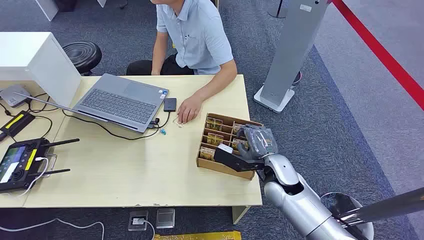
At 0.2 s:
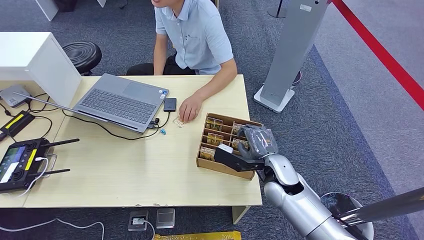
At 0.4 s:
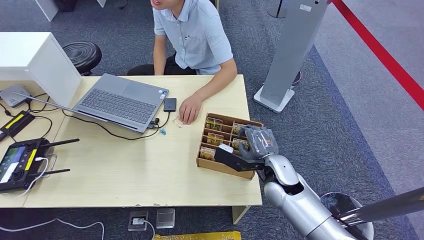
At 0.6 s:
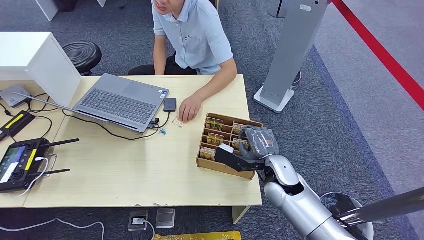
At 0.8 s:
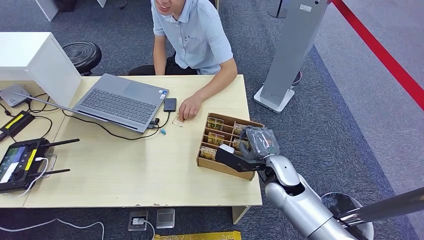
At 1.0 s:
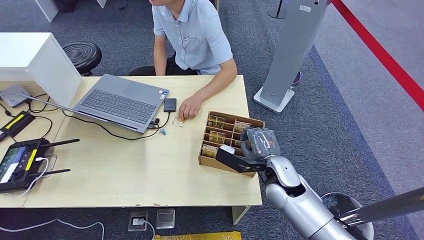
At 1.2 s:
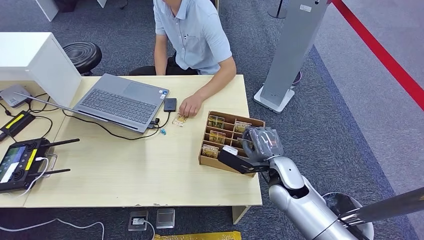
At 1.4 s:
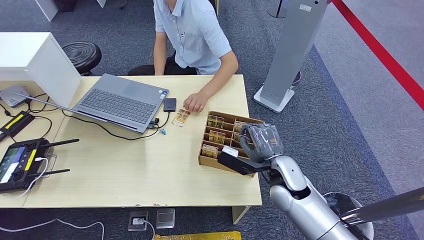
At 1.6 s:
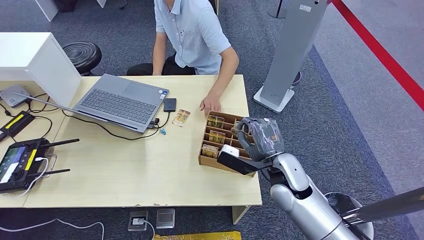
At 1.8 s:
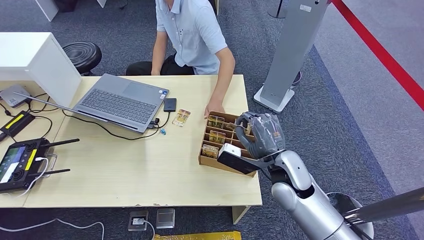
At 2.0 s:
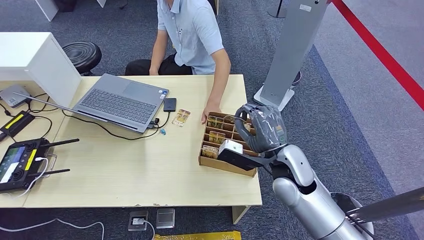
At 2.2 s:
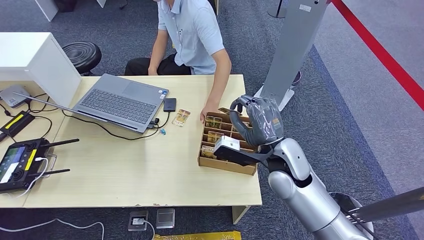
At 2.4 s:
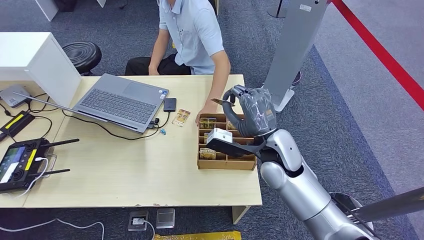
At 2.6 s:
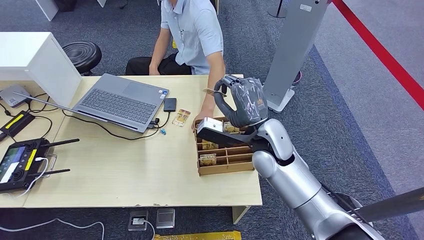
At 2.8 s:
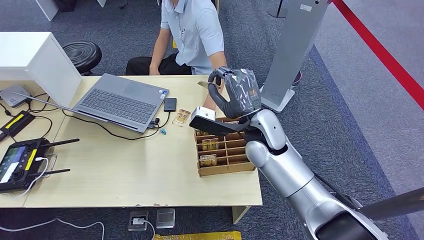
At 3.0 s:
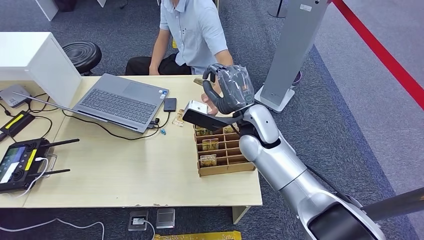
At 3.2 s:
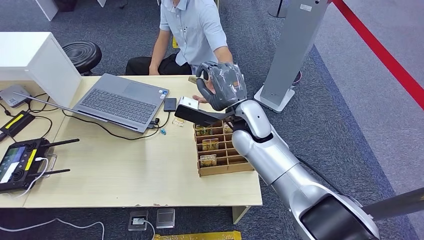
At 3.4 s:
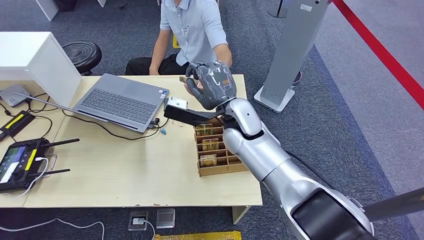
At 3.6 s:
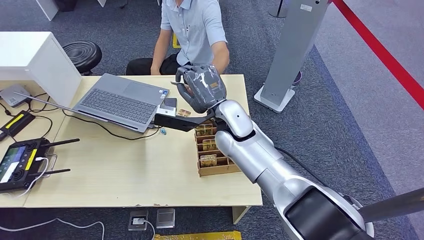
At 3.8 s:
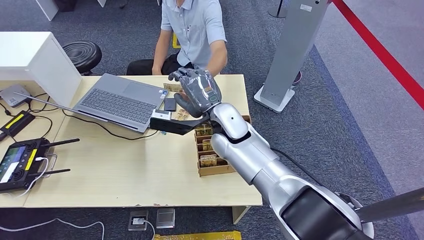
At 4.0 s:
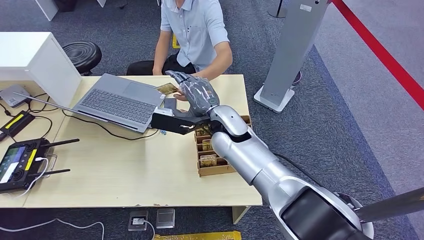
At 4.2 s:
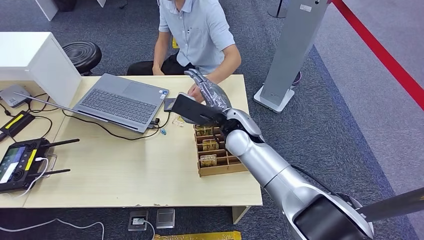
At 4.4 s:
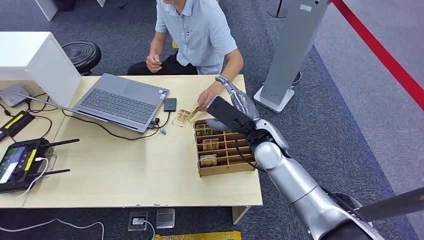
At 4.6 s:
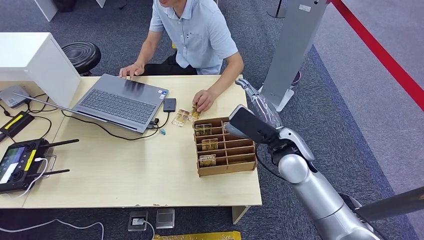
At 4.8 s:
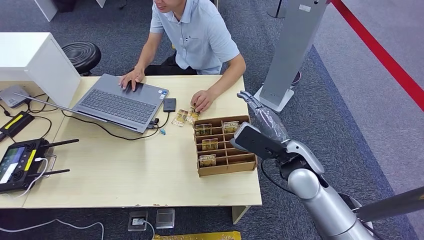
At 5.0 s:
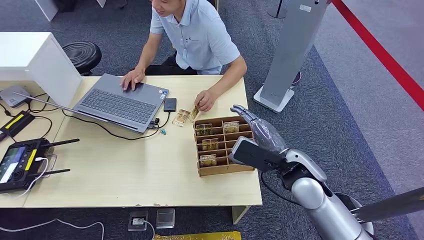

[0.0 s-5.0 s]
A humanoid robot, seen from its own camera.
Step, 0.0 to 1.6 s: Pick up the room card from the card holder.
Step, 2.0 to 4.8 s: Hand the room card to the target.
1.6 to 3.4 s: The right hand travels to the left, upward and forward by about 20 cm.
3.4 to 5.0 s: The right hand goes roughly 20 cm to the right and backward.
